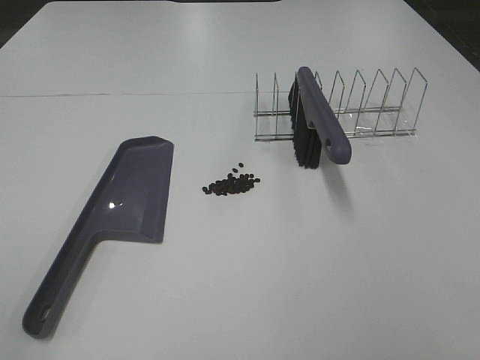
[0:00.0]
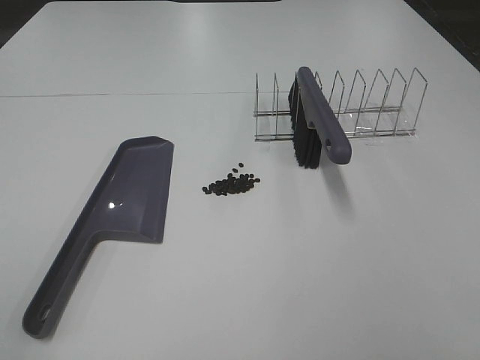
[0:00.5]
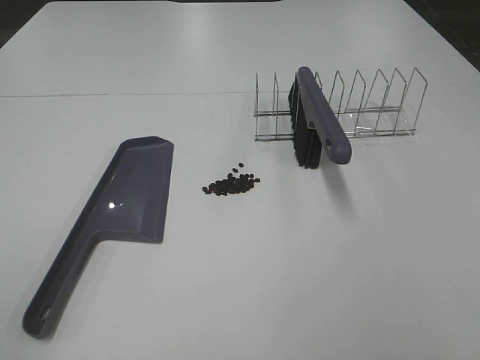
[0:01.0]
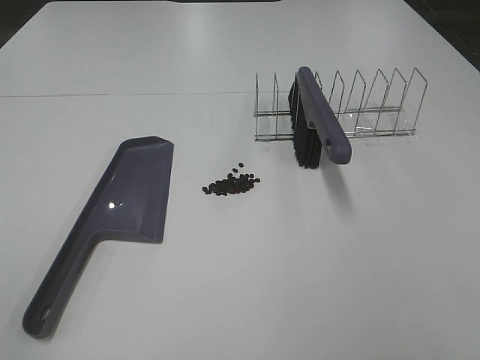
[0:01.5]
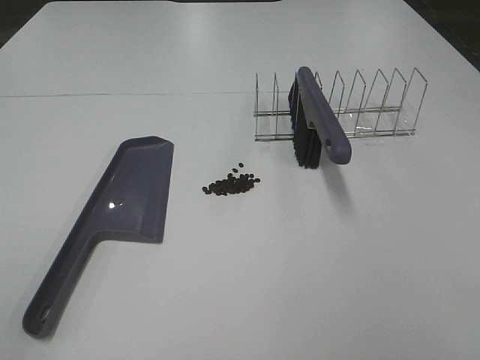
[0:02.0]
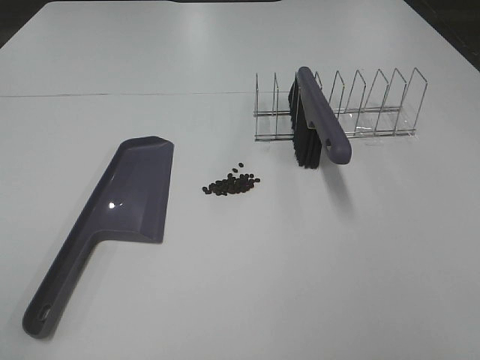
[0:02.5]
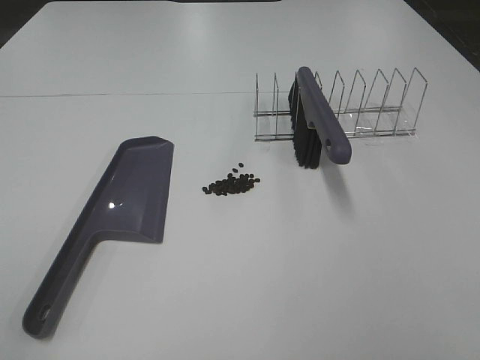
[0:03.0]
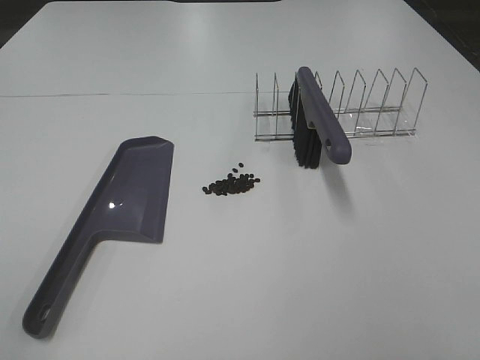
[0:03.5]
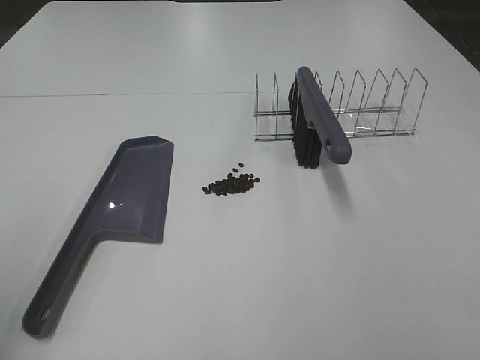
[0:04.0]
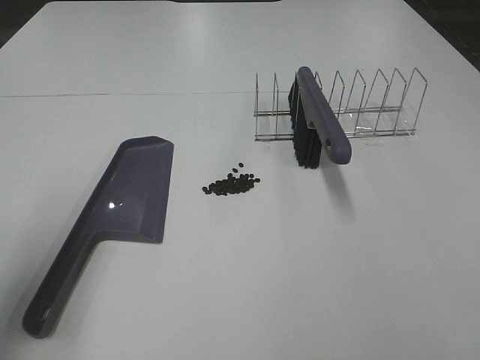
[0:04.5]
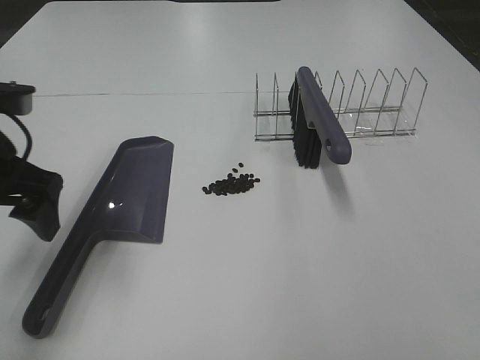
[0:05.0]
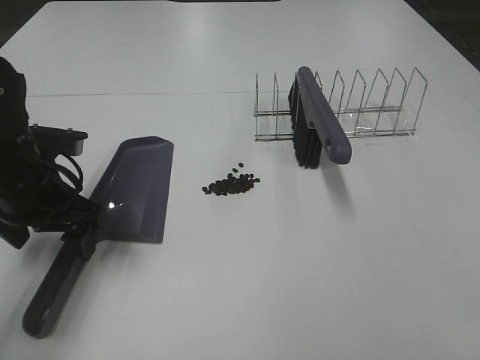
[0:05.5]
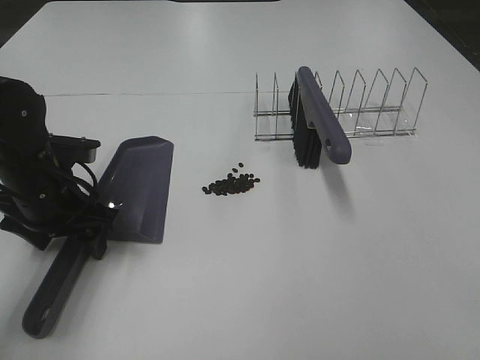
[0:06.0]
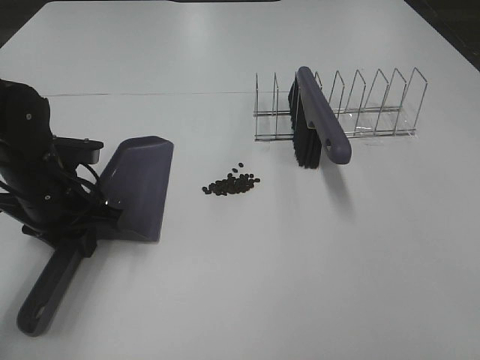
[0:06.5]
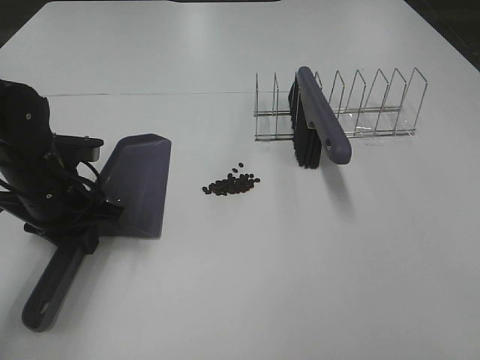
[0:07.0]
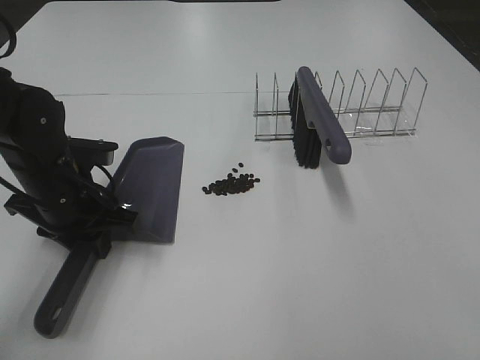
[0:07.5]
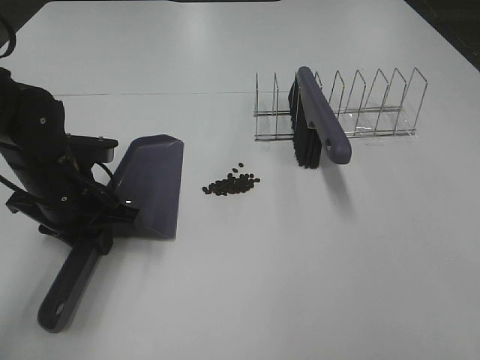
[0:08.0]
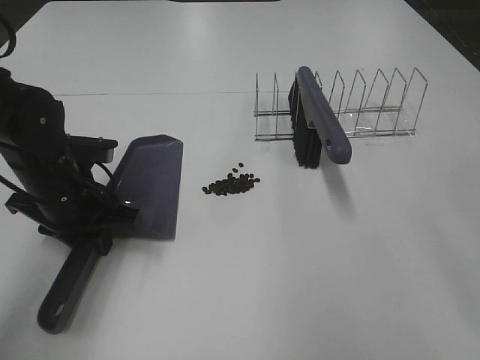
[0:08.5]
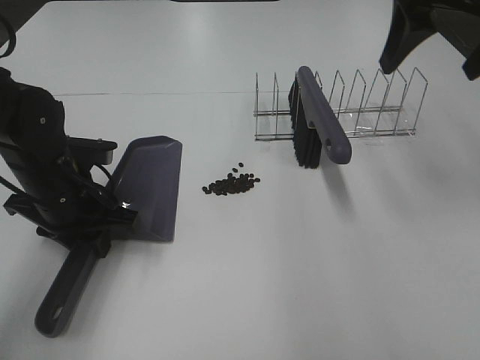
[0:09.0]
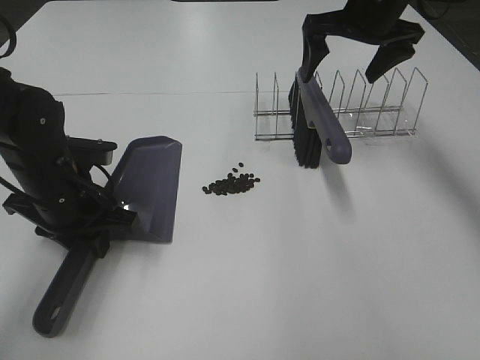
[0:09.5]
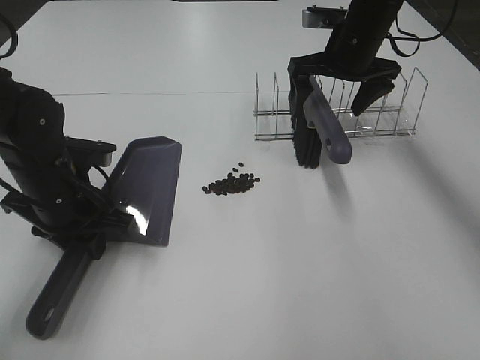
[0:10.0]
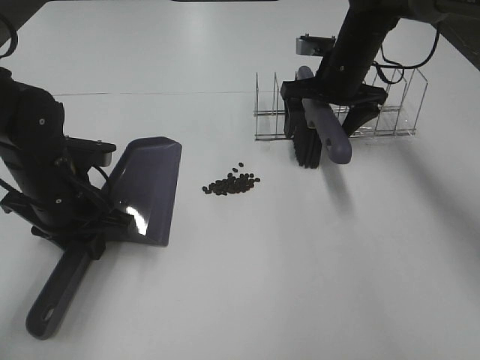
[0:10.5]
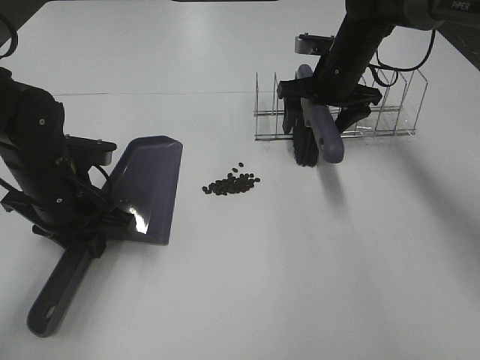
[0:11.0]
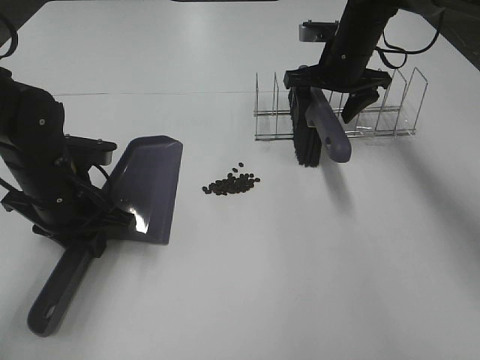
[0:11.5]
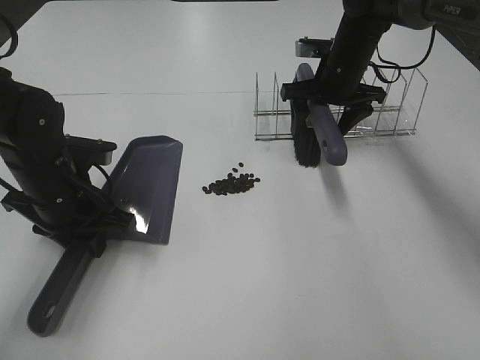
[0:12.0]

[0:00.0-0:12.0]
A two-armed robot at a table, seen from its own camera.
Task of the whole recording: Sweep Coffee Bean.
Step, 0:00.0 to 0:06.5: Left hand: grab the dustpan.
0:00.0 to 0:02.0: The two grippers keep their place.
0:04.0 to 0:06.0: The left gripper goes approximately 30 cm forward, downward and to the right, and closes its fingers.
0:06.0 to 0:08.0: The left gripper closes up.
0:08.0 to 0:10.0: The right gripper is displaced forward by approximately 50 cm.
0:10.0 to 0:12.0: The right gripper shifts roughly 5 cm downward, and closes up.

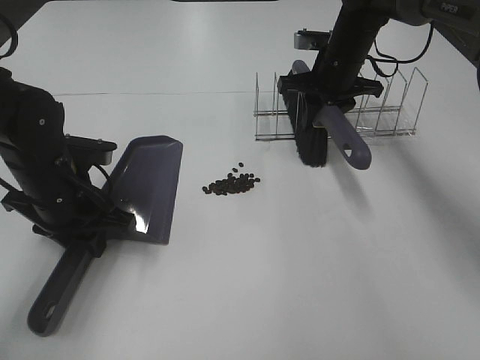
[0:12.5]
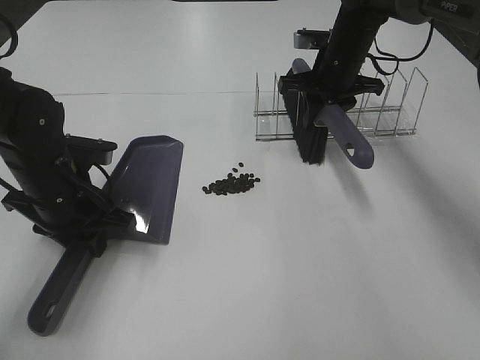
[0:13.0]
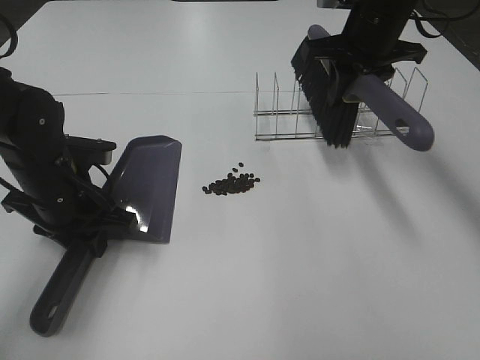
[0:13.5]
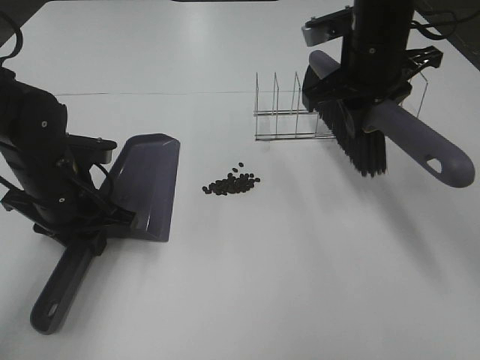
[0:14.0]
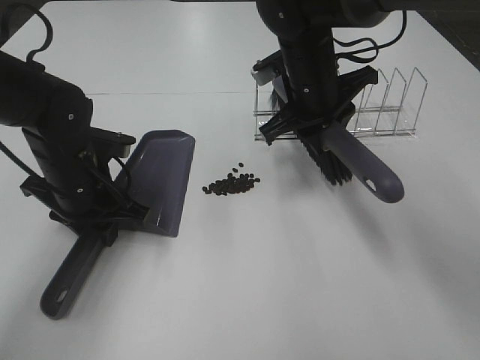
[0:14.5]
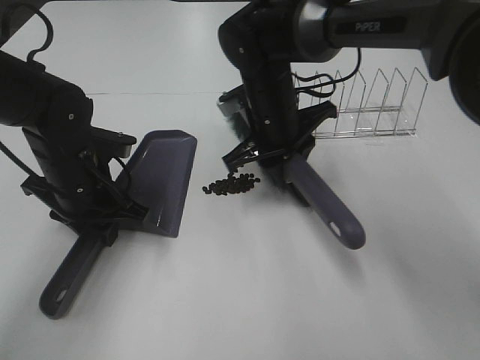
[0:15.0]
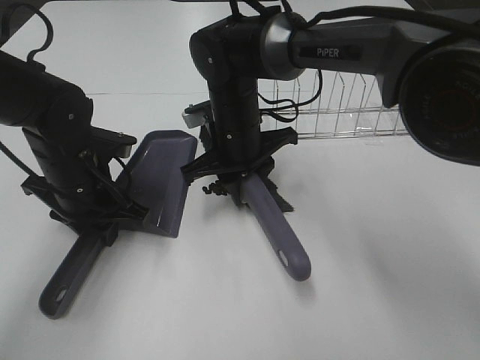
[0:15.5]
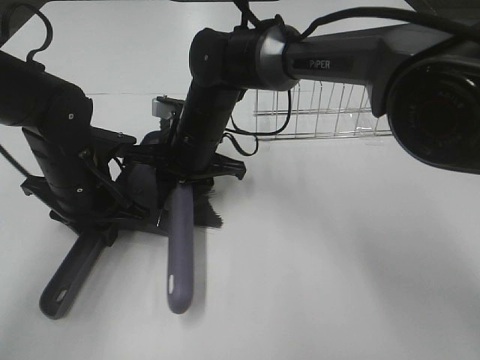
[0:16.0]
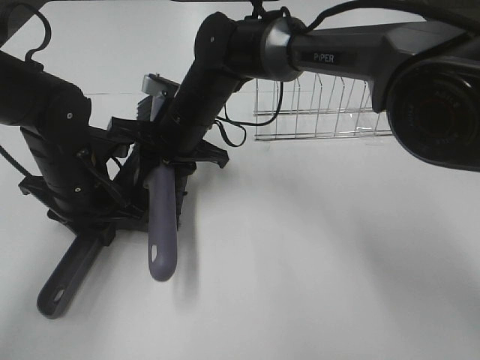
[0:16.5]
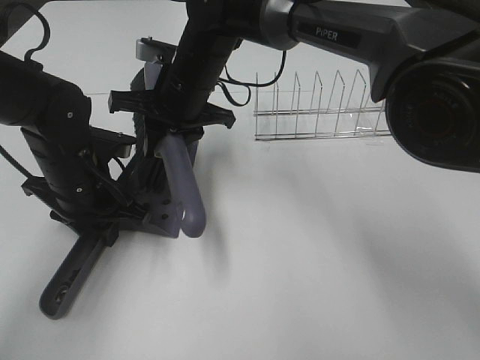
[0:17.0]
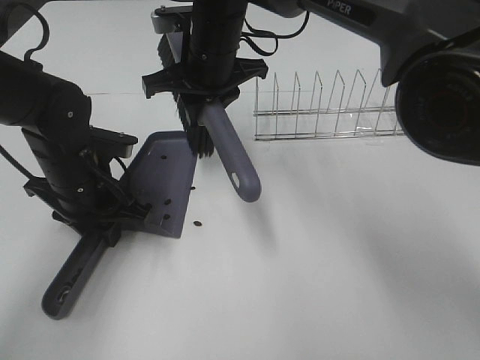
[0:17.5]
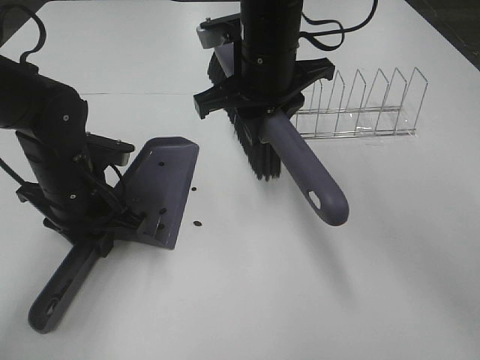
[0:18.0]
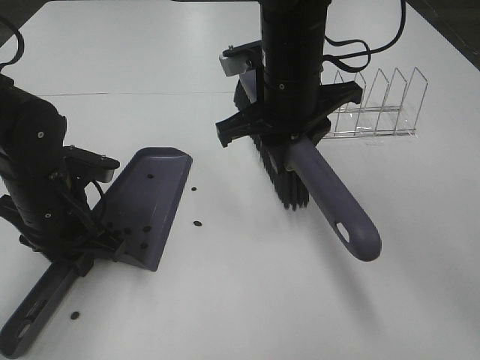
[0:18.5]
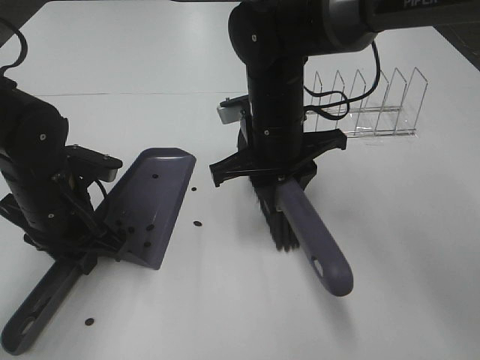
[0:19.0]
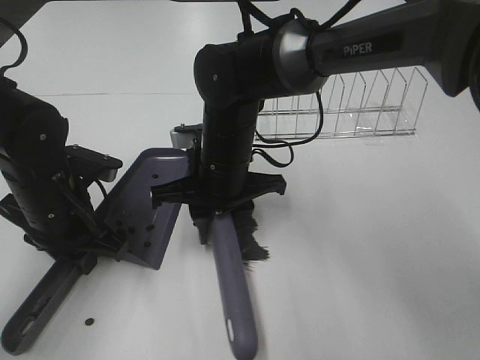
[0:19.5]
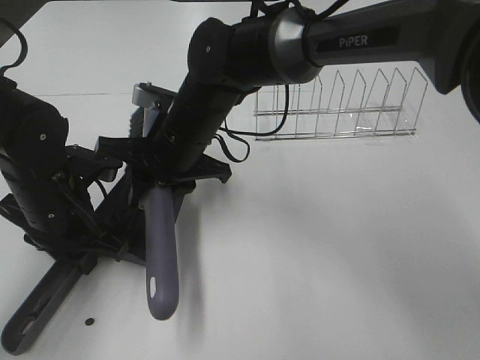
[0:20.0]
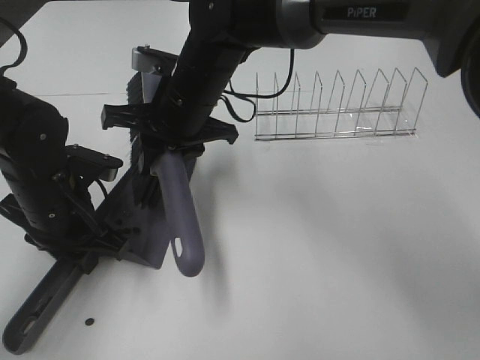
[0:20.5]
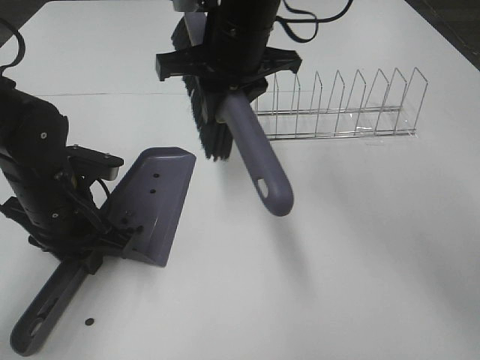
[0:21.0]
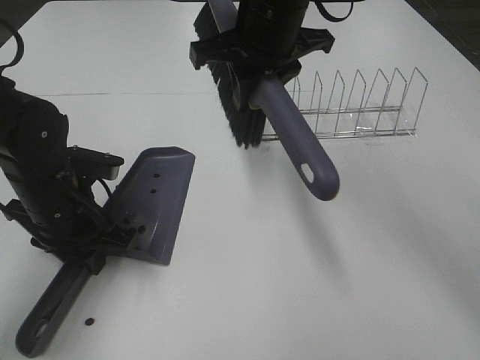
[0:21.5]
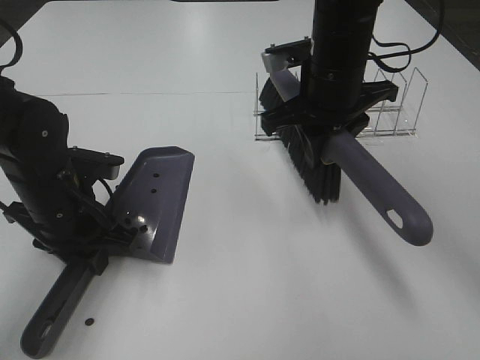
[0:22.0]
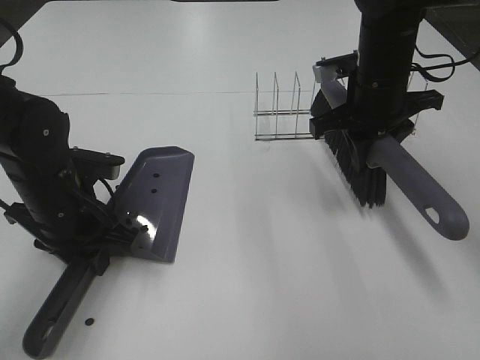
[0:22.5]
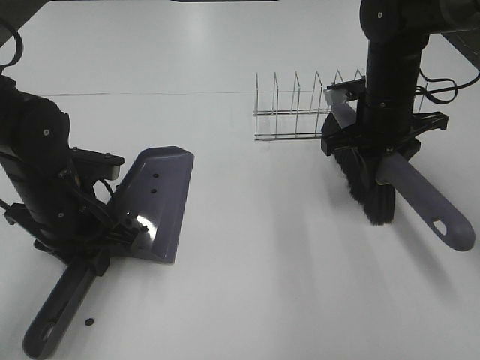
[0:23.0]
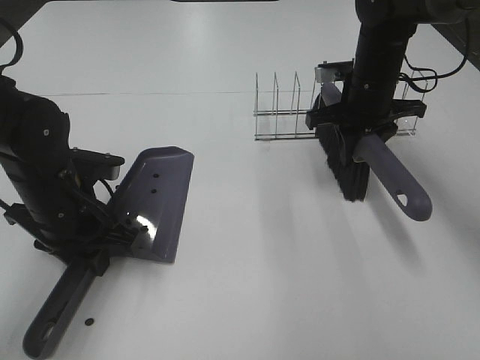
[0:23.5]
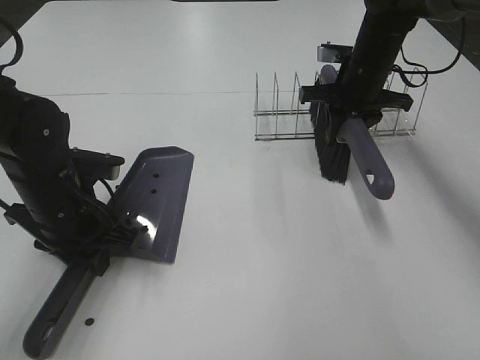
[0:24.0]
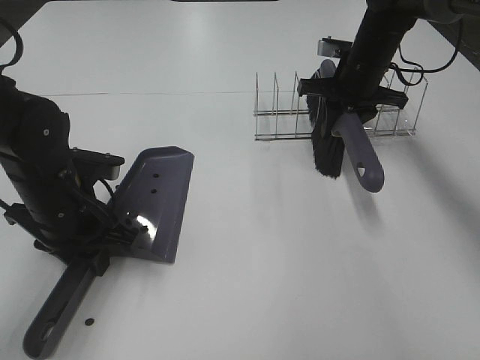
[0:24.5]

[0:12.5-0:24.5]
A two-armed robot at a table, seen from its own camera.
Task of the whole recording: Sweep Coffee Bean.
Step, 0:12.5 to 0:20.0: Right hand:sweep the coffee beans into the dustpan.
0:12.5 to 0:14.5: The right gripper goes approximately 10 cm backward and to the left.
0:14.5 to 0:16.5: The right gripper shifts some 15 cm to the left.
0:16.5 to 0:18.5: The right gripper heads to the right, upward and backward, covering approximately 15 cm.
0:18.5 to 0:20.5: The right gripper travels to the left by approximately 10 cm.
0:20.5 to 0:22.5: The right gripper travels to the right by roughly 20 cm.
0:22.5 to 0:24.5: The right gripper goes approximately 10 cm forward.

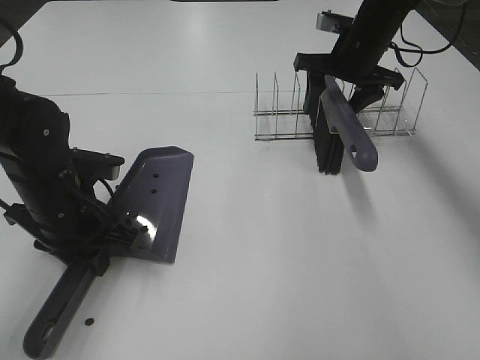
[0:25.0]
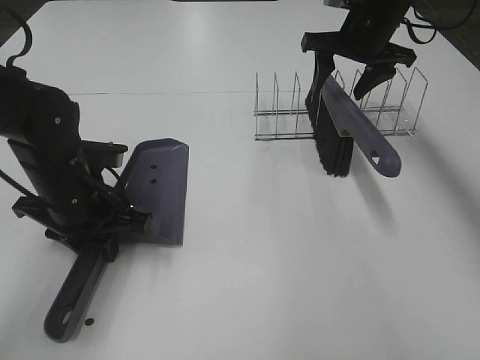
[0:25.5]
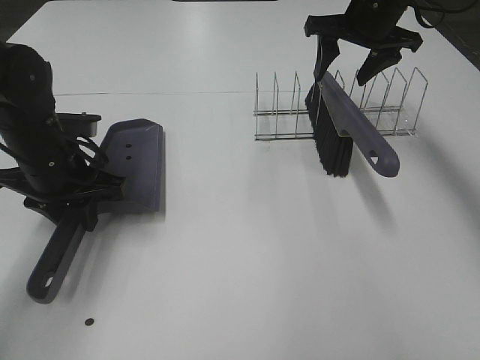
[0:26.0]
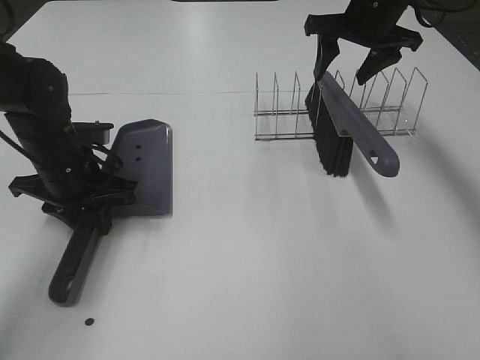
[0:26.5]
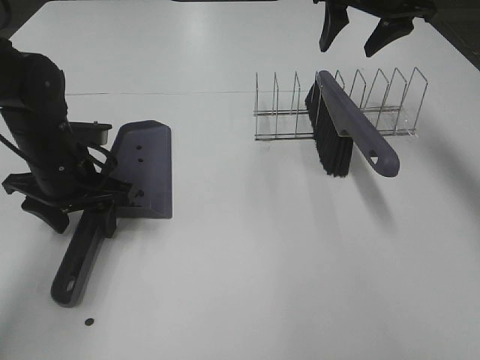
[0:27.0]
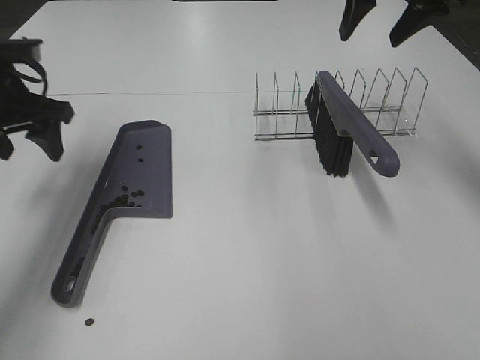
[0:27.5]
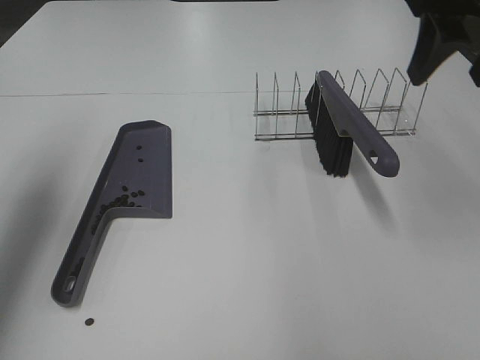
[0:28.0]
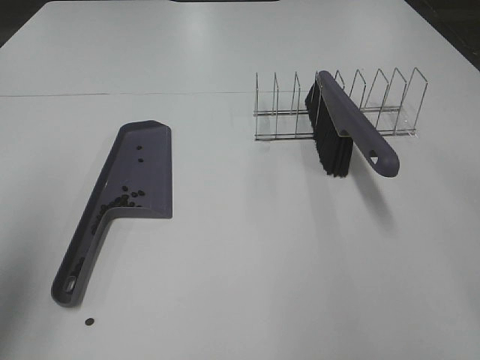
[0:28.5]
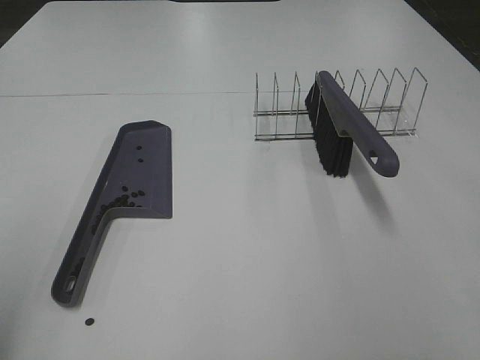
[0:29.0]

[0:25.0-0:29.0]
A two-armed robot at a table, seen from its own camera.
Task of the whole recording: Sweep Coffee Bean.
Step, 0:25.5 to 0:26.5: Left hand:place the dustpan on the table.
0:25.0 to 0:27.0: The right gripper shifts roughly 10 cm upward. The left gripper shifts about 5 cm forward, and opens.
0:27.0 to 0:29.0: The left gripper moves backward, upward and to the left, some 35 cm. Meanwhile the right gripper goes approximately 40 cm backward.
